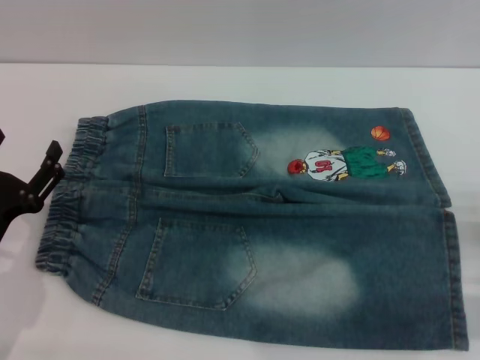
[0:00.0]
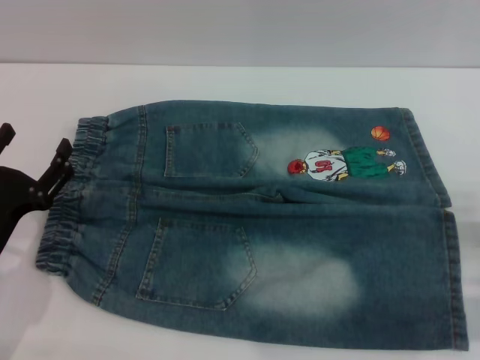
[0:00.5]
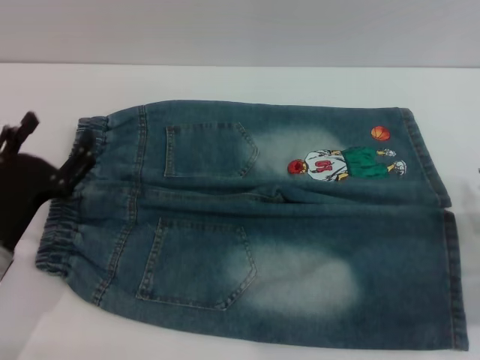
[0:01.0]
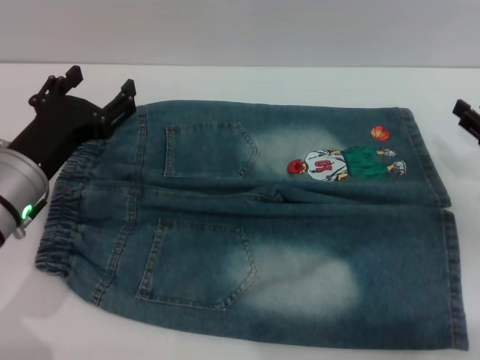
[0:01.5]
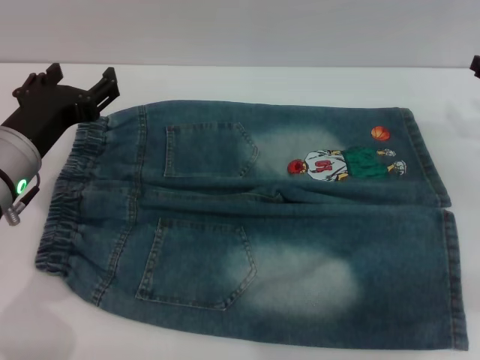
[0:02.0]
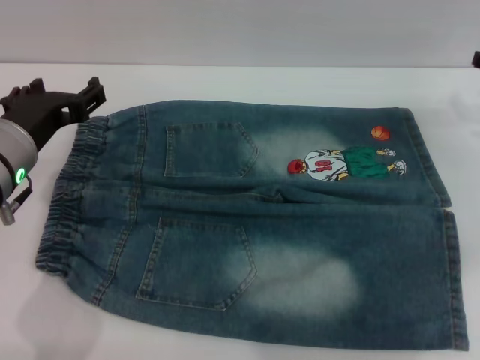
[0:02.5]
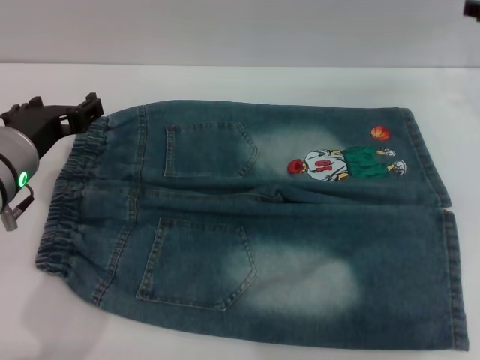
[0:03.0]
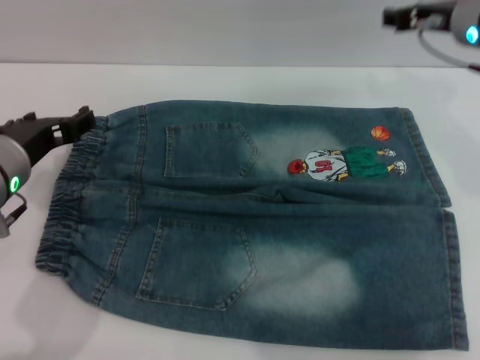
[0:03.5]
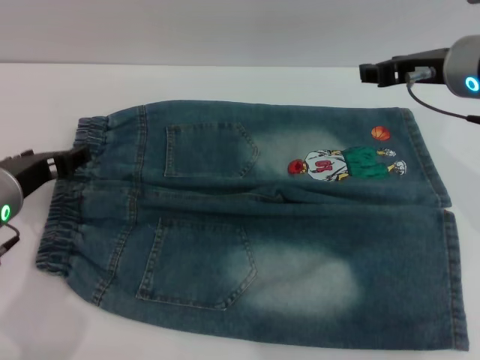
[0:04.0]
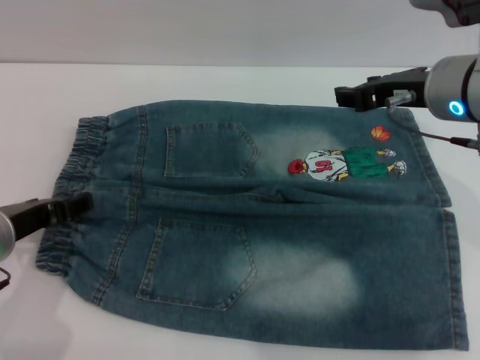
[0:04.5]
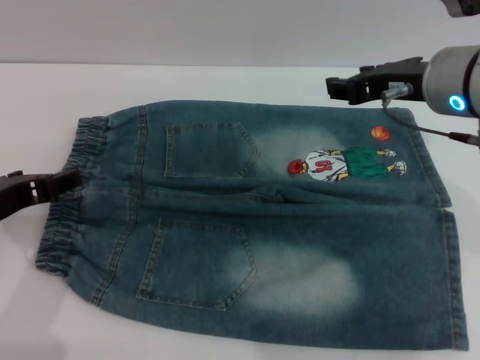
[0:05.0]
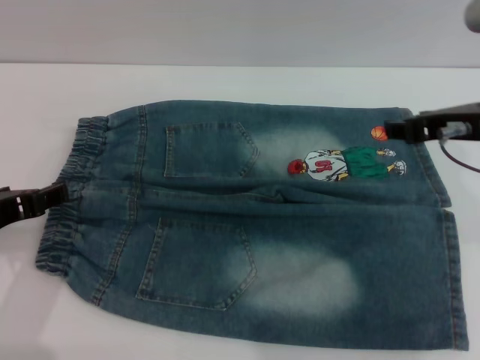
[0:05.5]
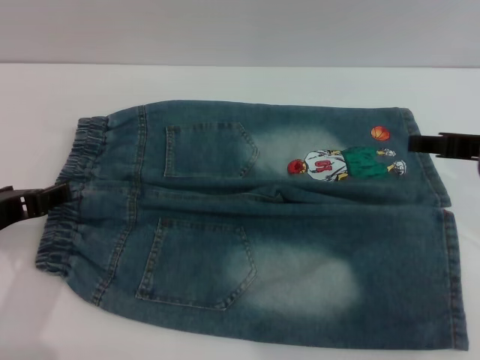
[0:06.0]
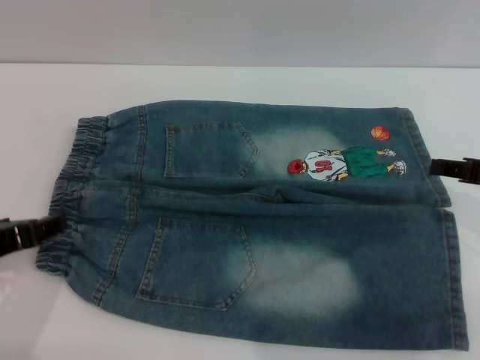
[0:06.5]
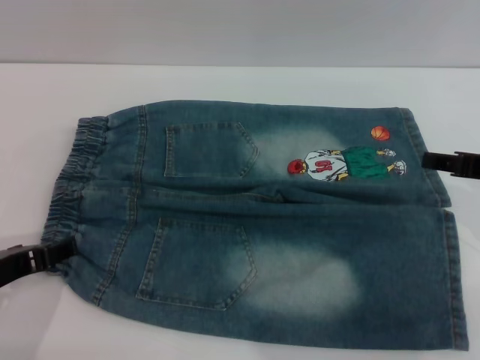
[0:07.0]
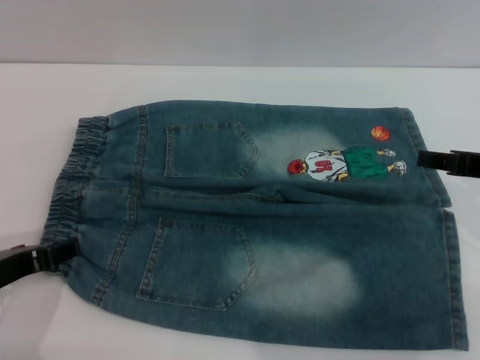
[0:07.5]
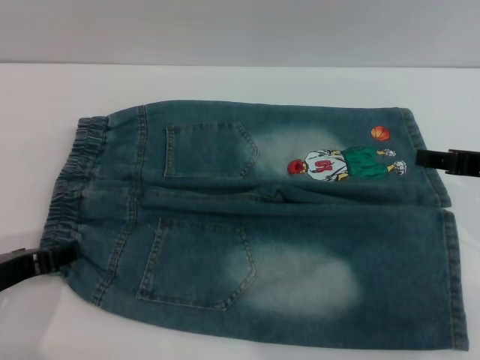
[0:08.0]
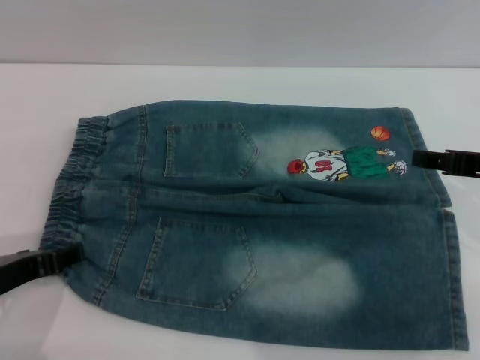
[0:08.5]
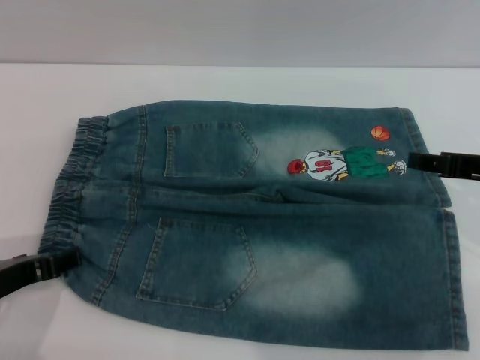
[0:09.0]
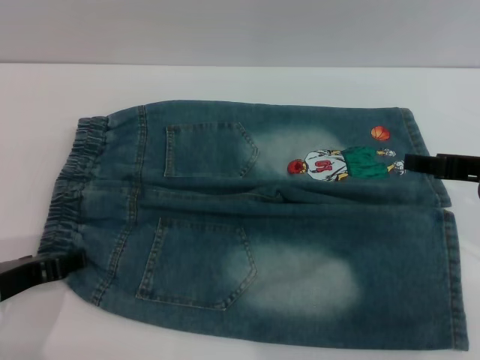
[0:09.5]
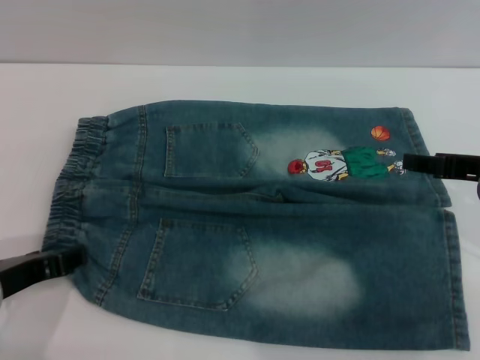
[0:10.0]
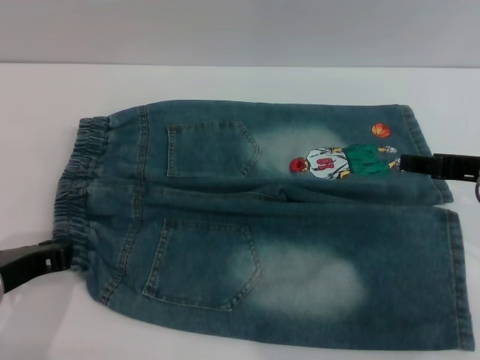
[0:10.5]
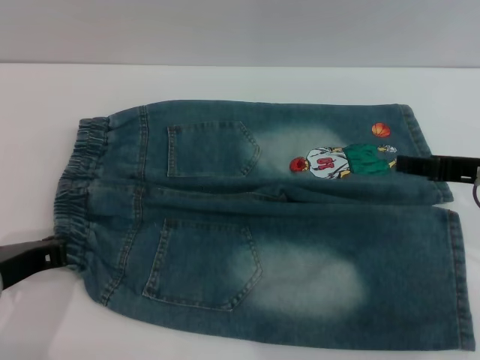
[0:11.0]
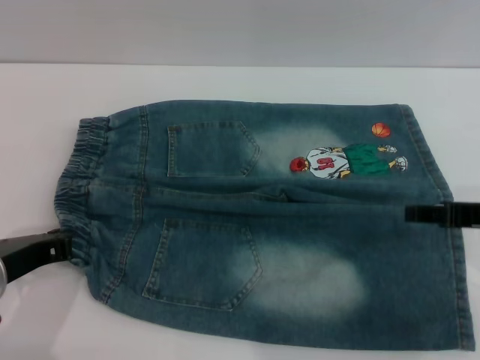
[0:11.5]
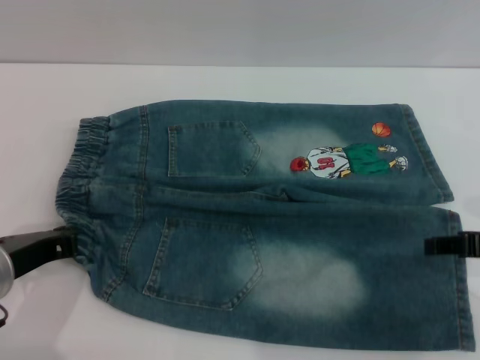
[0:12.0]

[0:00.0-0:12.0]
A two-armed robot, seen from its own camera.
0:00.0 to 0:02.0: The left gripper is displaced upward, forward and to the right by about 15 cm, while the right gripper heads forward and upward, covering some 20 cm.
0:02.0 to 0:04.0: The right gripper goes approximately 15 cm to the left and upward.
0:04.0 to 0:06.0: The left gripper is displaced backward by about 5 cm; the right gripper travels backward and to the right by approximately 10 cm.
0:06.0 to 0:08.0: The grippers make only small movements.
0:08.0 to 0:10.0: Neither gripper changes place.
0:10.0 to 0:12.0: The left gripper closes.

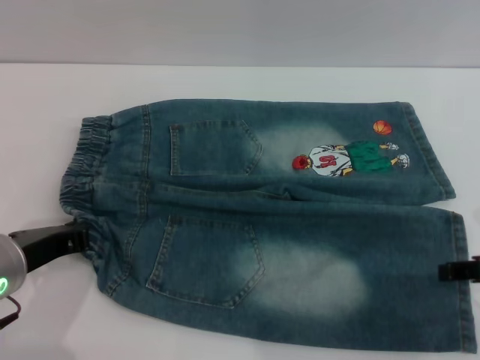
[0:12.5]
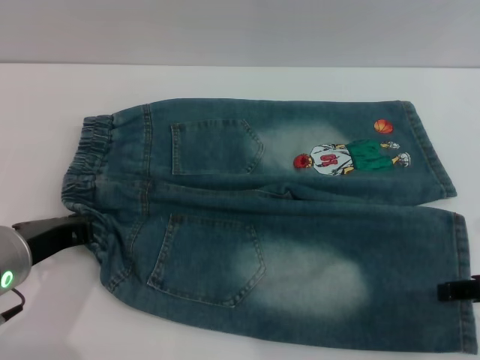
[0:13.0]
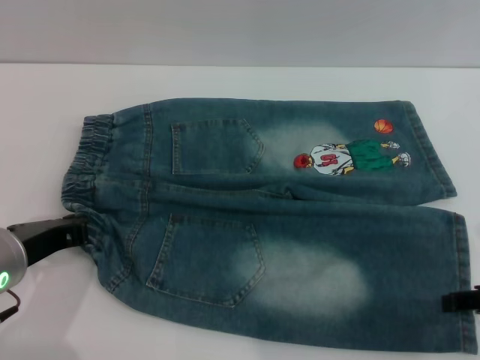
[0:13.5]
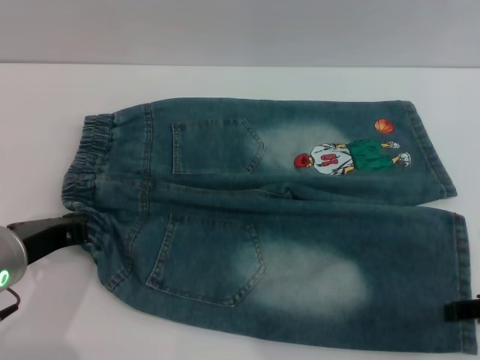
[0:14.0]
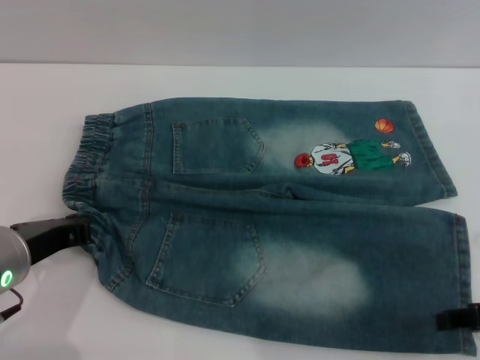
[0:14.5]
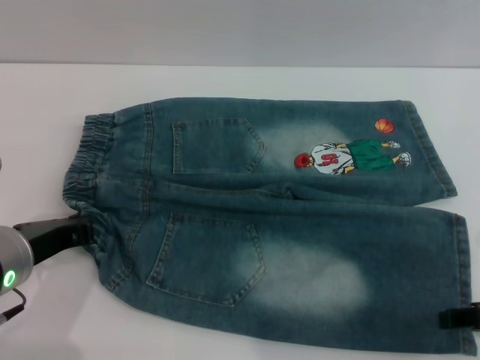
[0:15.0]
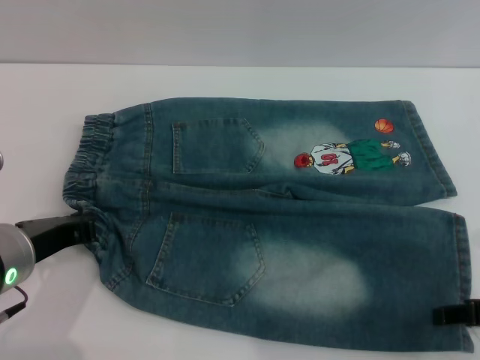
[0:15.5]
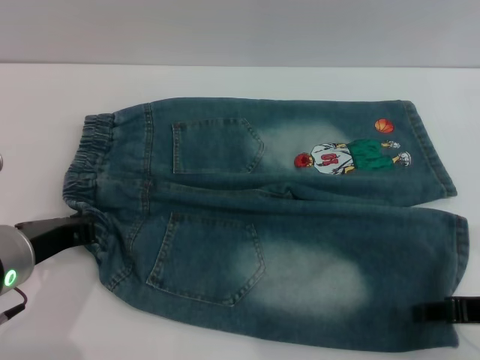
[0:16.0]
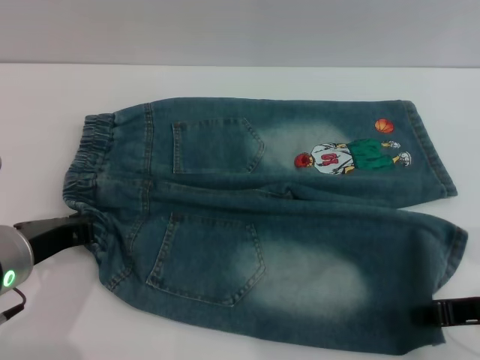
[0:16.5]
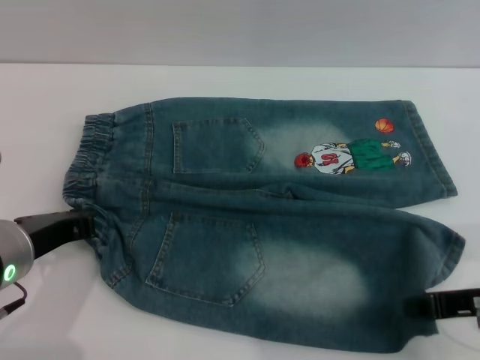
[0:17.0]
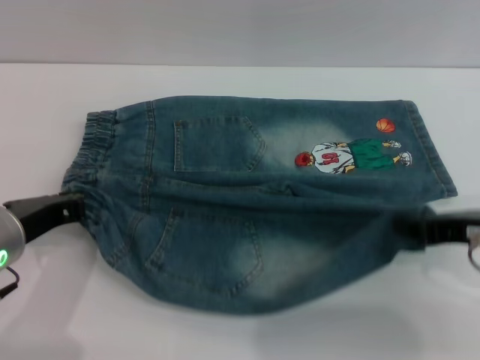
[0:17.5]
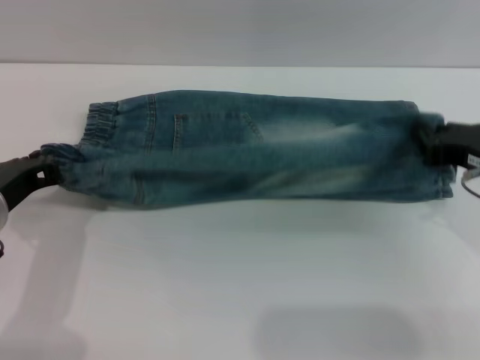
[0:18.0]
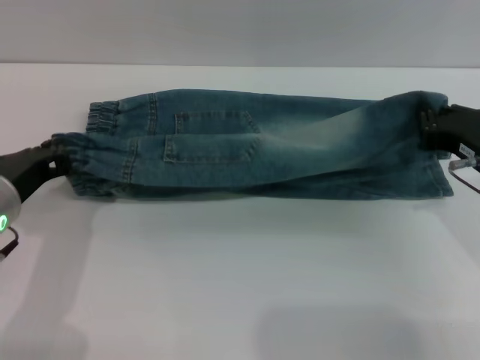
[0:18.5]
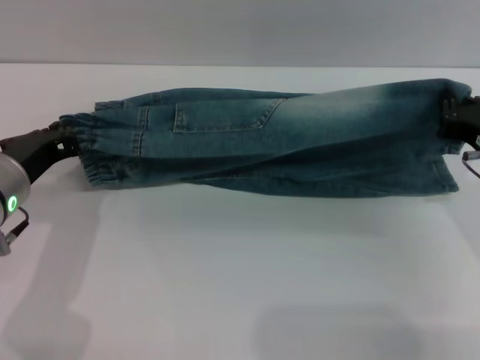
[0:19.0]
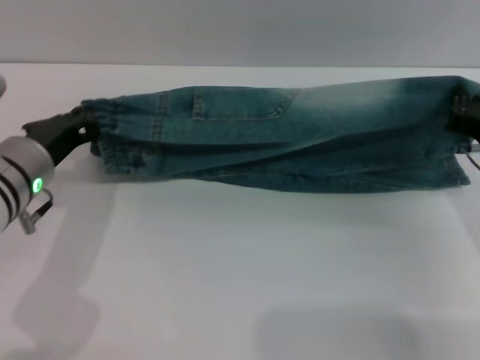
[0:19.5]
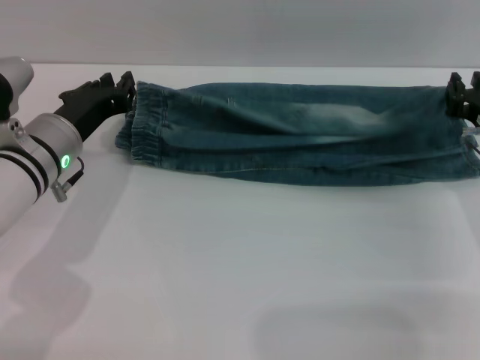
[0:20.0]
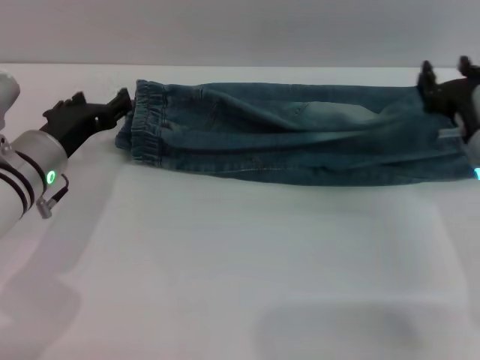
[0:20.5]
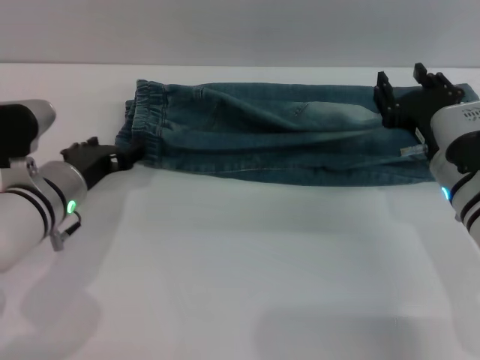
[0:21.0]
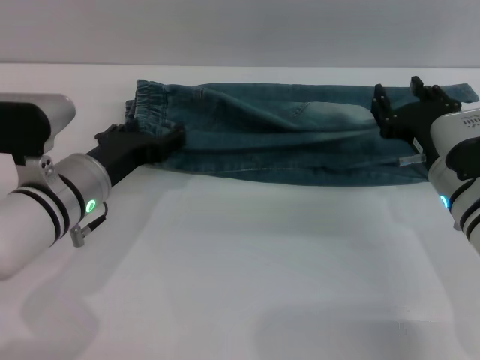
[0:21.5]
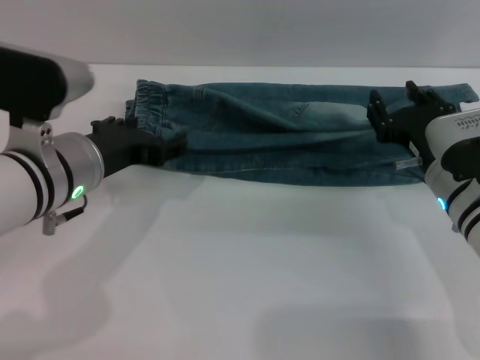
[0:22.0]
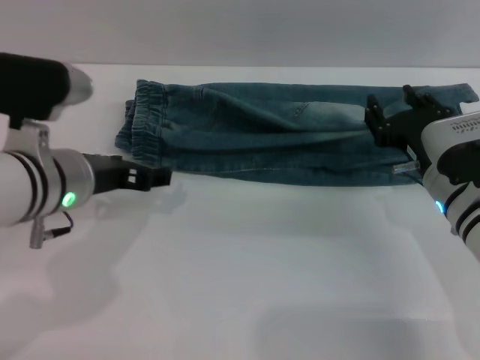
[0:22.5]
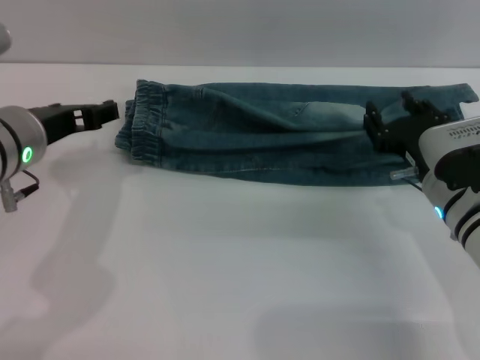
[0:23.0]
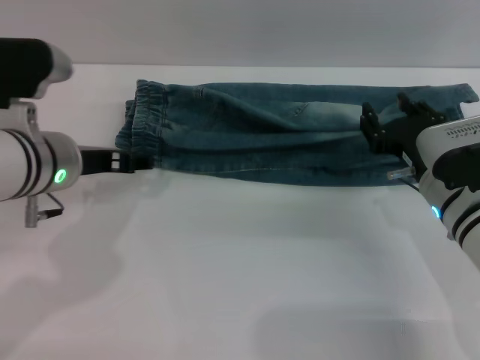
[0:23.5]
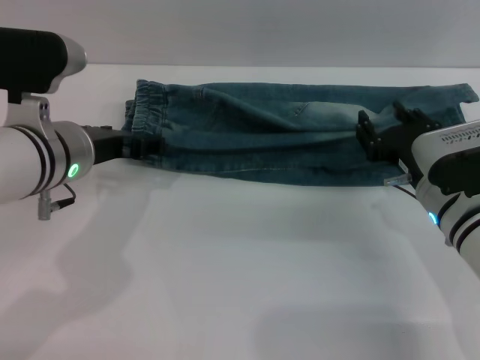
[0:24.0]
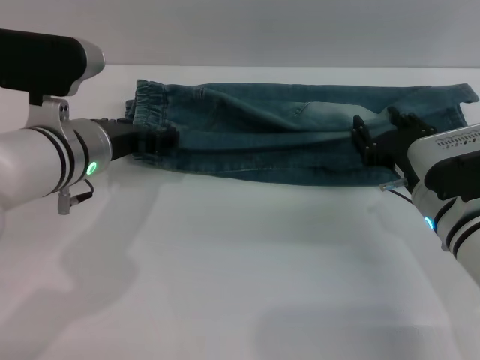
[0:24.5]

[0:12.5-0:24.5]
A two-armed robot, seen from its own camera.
Step, 0:12.5 to 0:21.0: Fold the bottom of the pants upward with both grippers.
0:12.5 to 0:16.5: The grippers make only small movements.
0:16.5 to 0:18.5: The right gripper shifts about 10 cm forward, and closes its fingers.
0:18.5 to 0:20.5: The left gripper travels forward by roughly 10 cm, and opens up, while the right gripper moves some 5 cm, and opens up.
0:20.5 to 0:22.5: The left gripper is displaced upward by approximately 5 cm, and opens its fingers.
0:22.5 to 0:24.5: The grippers make only small movements.

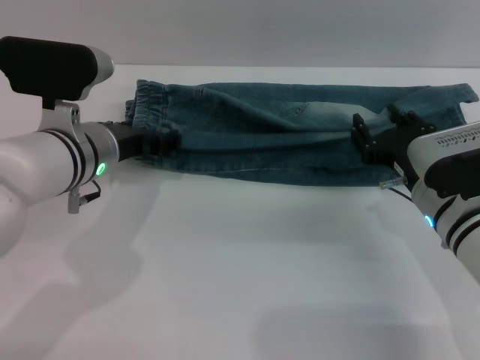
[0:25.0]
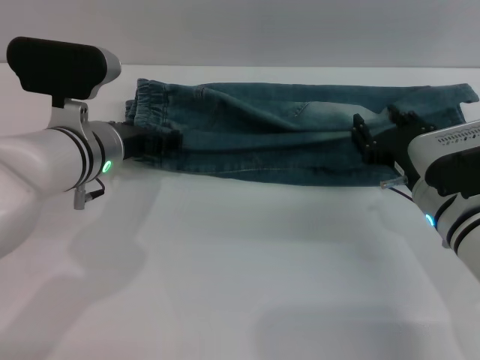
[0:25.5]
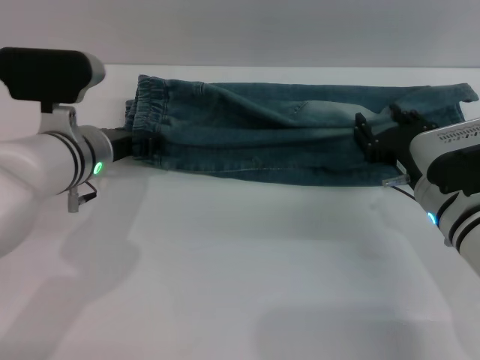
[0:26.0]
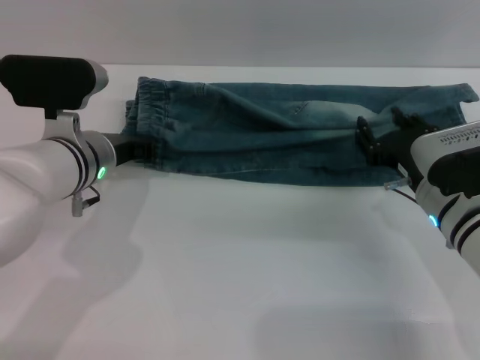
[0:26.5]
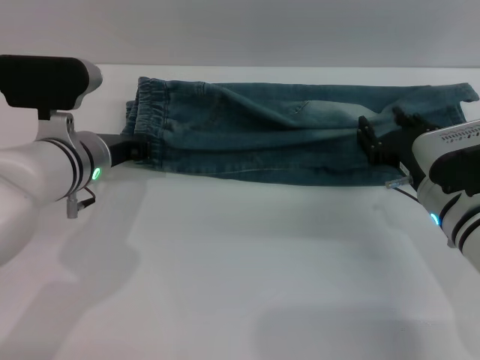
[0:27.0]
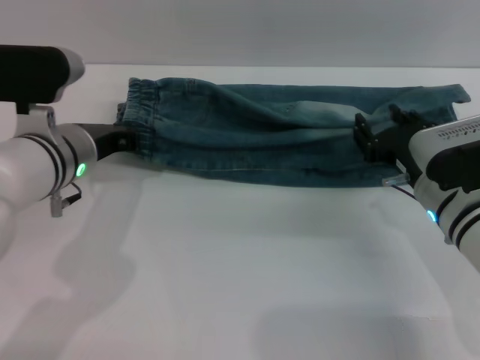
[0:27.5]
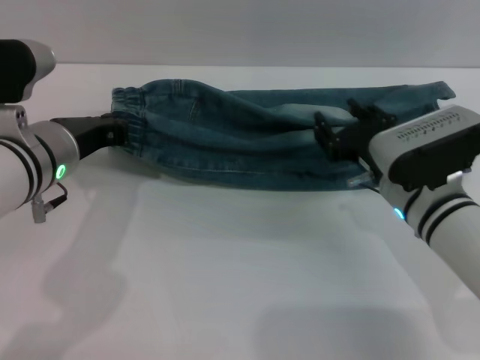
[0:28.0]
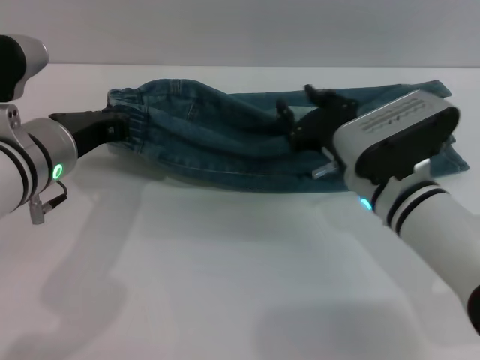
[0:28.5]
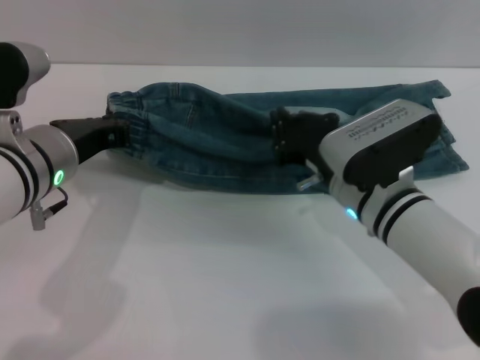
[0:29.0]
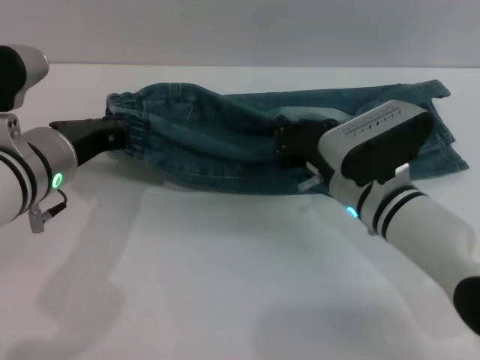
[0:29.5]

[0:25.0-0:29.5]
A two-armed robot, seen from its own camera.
0:25.0 to 0:27.0: The left gripper closes up.
0:27.0 to 0:29.5: The left gripper shifts about 10 cm backward and upward. Meanwhile the right gripper travels to the left by some 5 cm, and closes up.
